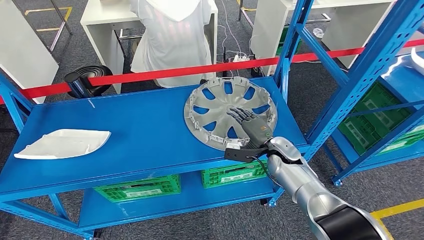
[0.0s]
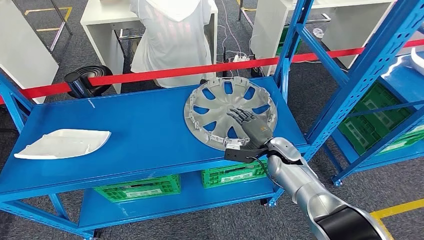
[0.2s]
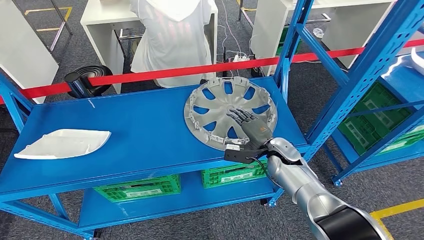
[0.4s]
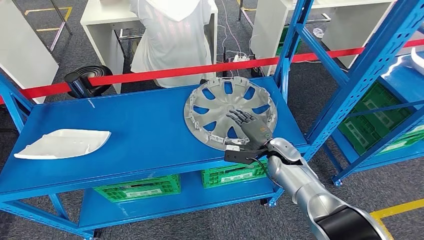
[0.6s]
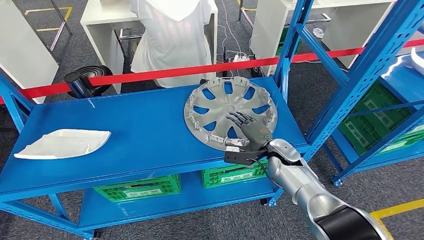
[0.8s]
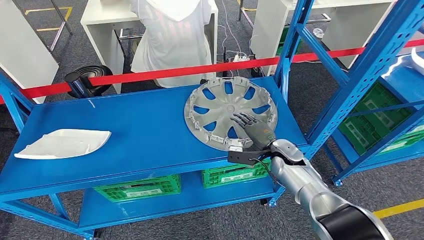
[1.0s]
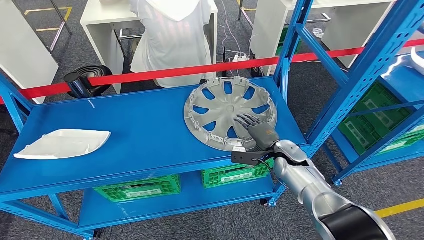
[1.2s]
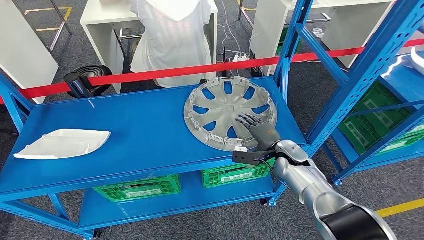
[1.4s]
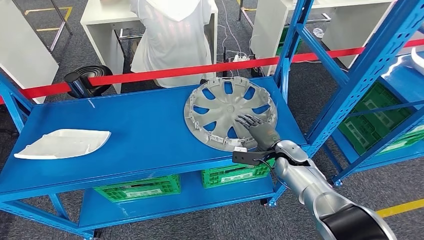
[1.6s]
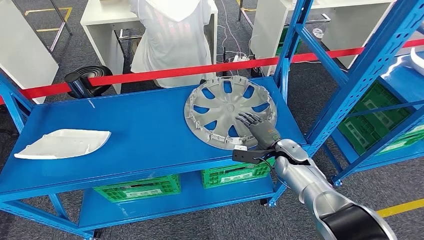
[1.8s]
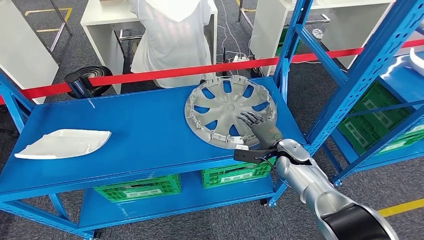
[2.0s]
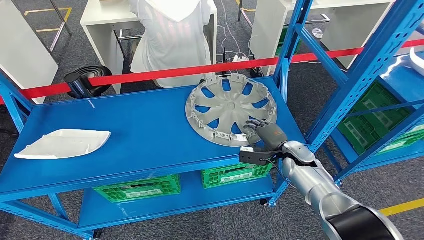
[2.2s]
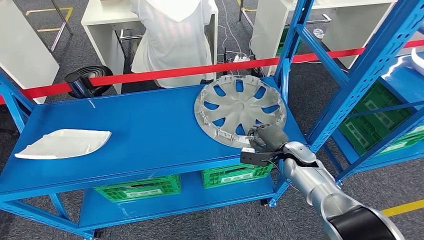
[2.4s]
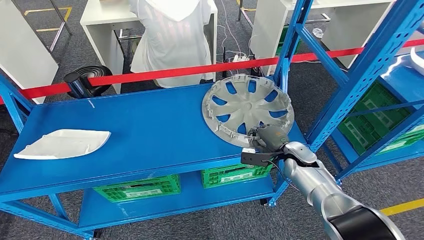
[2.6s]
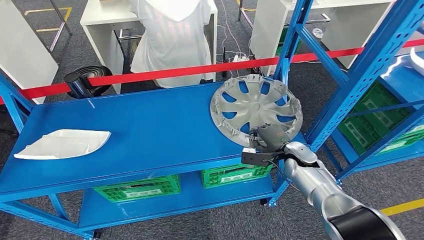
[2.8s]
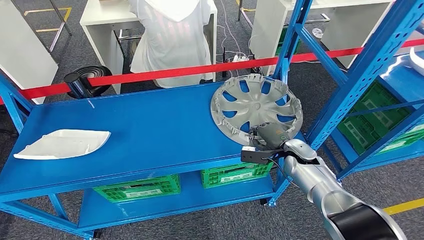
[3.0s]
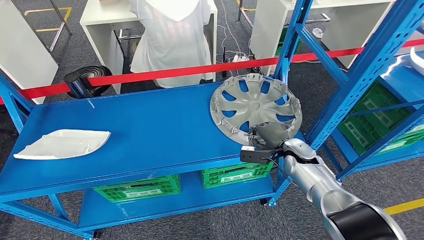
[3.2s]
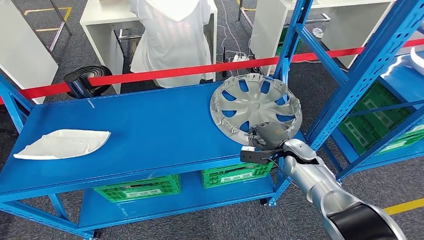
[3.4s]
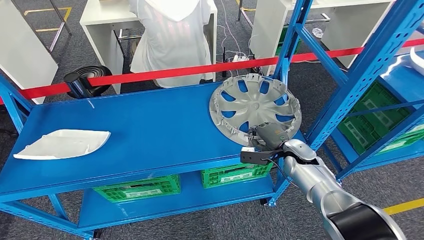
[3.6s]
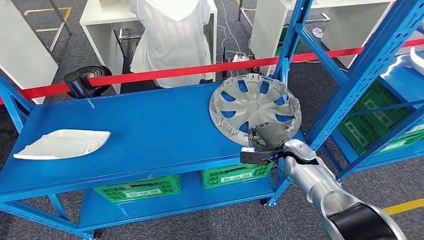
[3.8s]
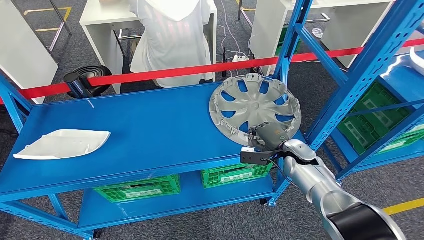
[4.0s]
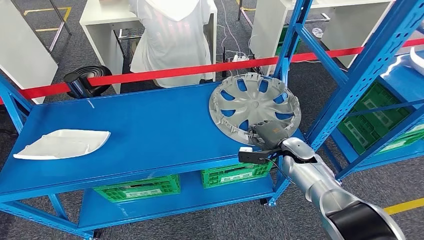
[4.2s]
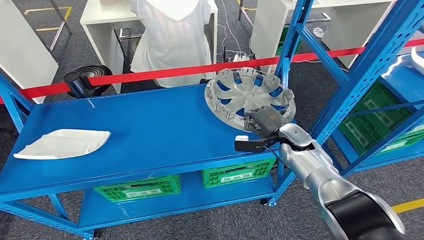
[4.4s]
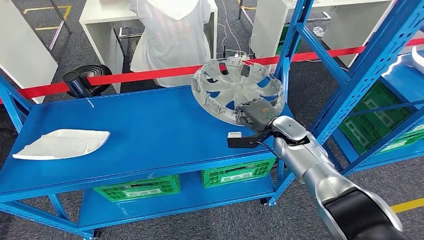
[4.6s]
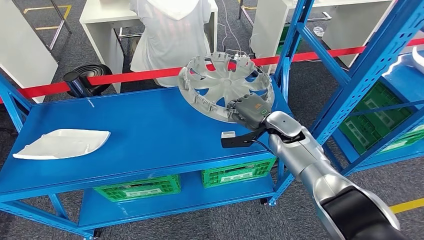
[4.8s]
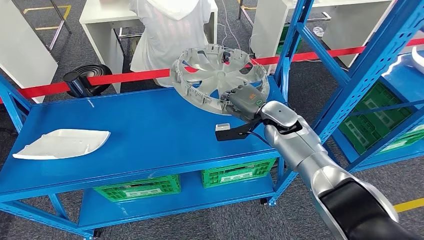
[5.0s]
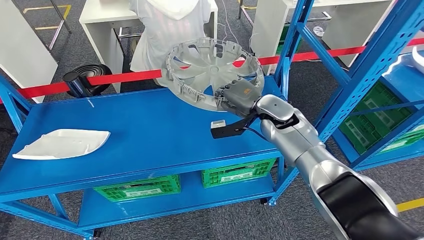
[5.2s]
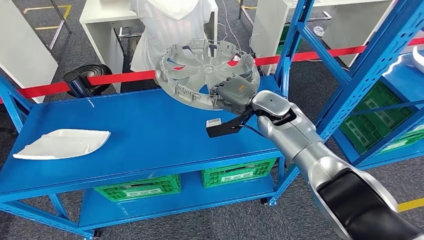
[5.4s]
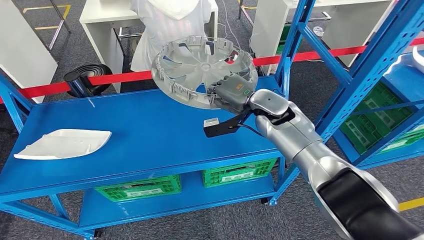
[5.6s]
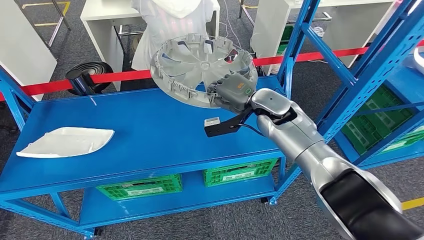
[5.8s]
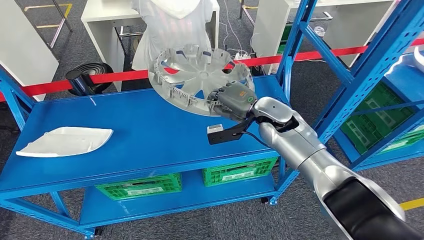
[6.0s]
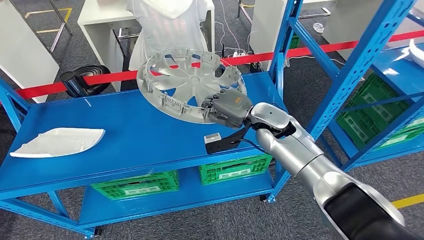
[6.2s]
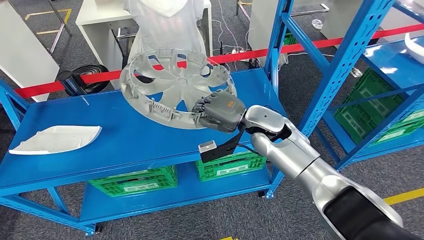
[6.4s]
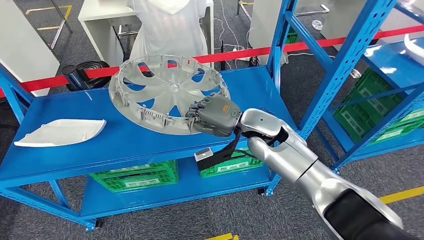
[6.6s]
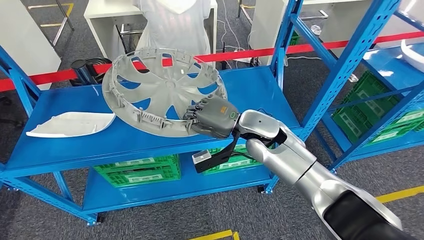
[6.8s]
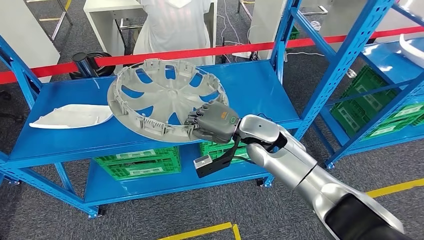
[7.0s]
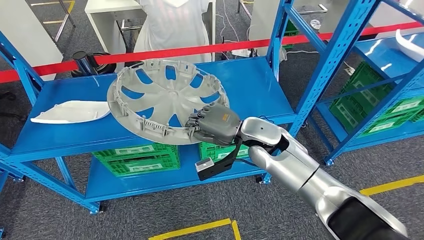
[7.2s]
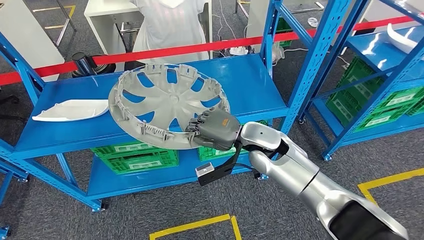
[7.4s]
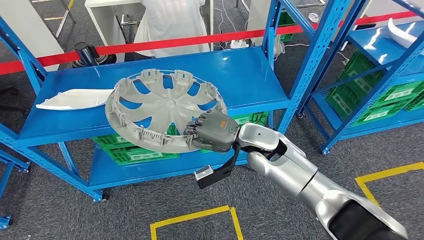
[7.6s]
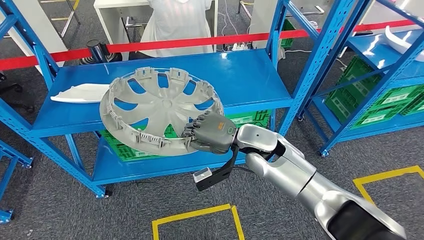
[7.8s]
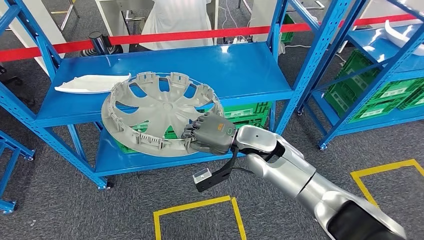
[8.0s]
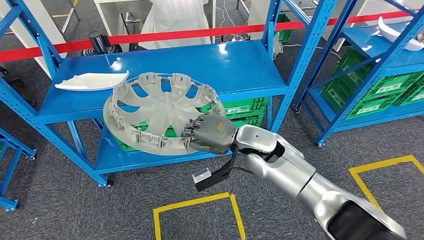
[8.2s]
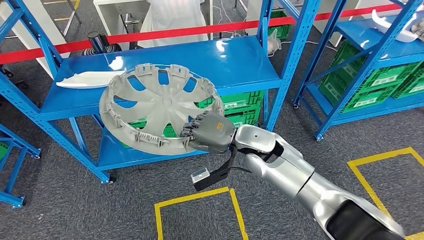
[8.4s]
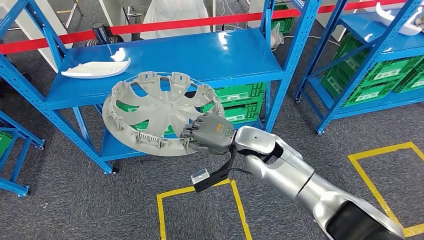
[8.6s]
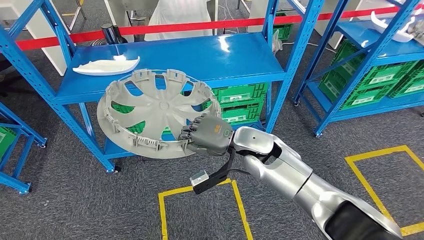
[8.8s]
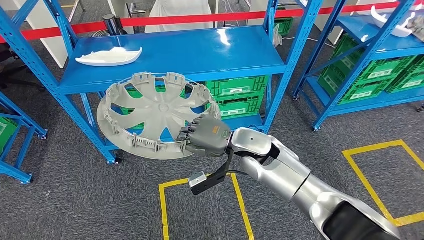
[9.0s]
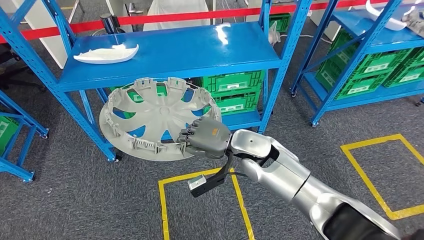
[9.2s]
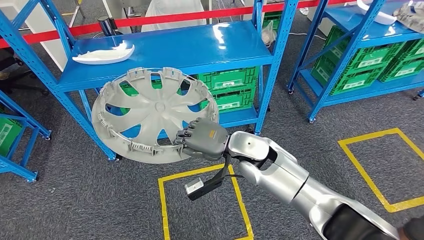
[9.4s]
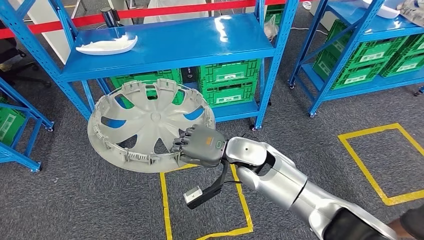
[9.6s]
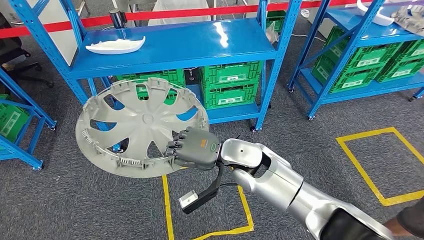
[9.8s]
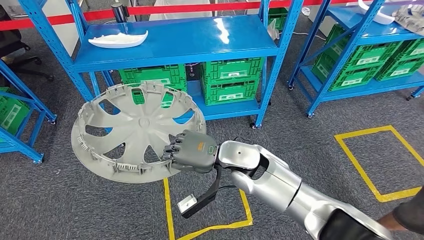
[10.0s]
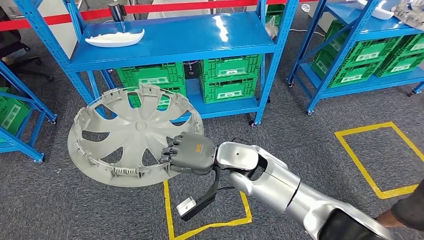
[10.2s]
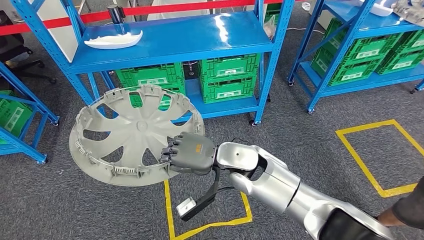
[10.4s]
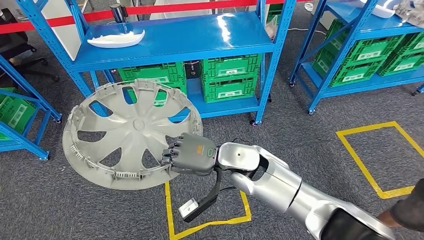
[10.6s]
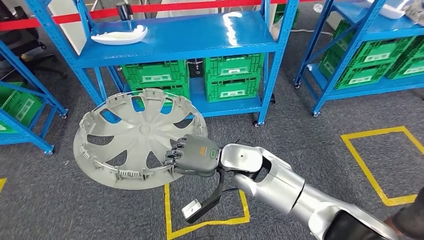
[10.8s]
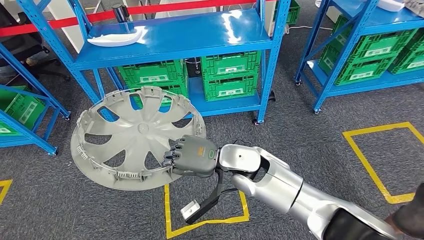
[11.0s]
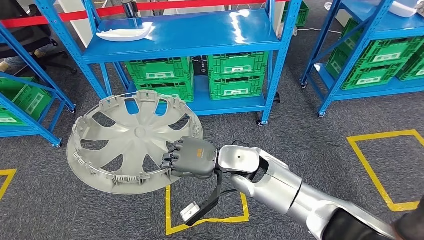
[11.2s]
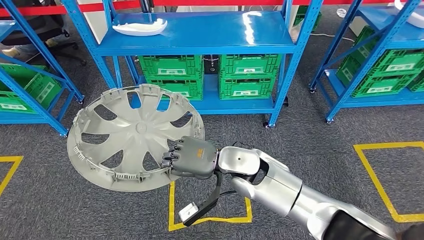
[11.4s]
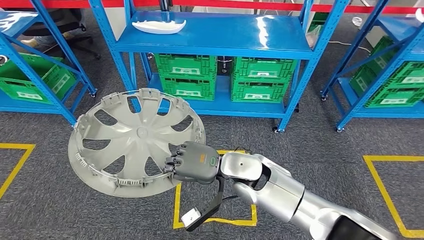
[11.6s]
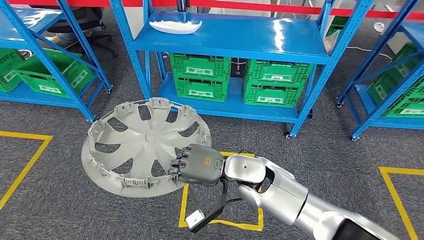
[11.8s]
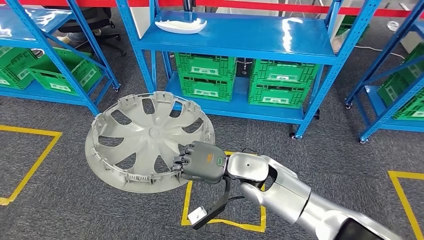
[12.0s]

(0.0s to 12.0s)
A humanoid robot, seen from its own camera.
Step, 0.0s - 6.2s: Pick up the large material from the shelf.
0.0s - 3.0s: The hands stay close to where they were, moving slightly.
3.0s - 4.4s: The right hand changes place by about 5 cm.

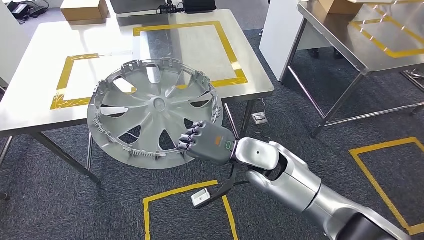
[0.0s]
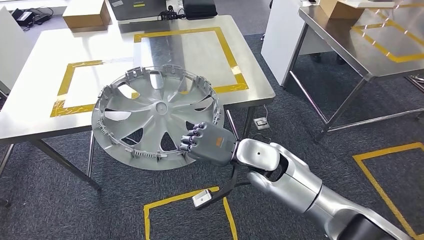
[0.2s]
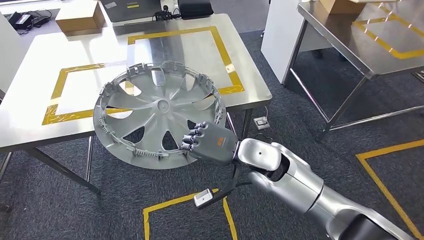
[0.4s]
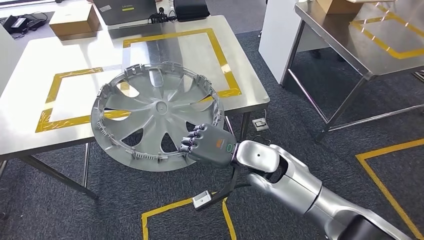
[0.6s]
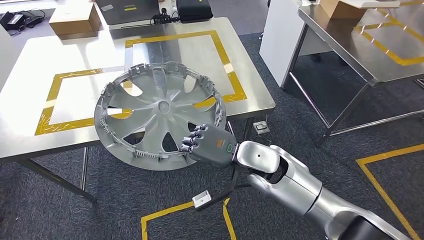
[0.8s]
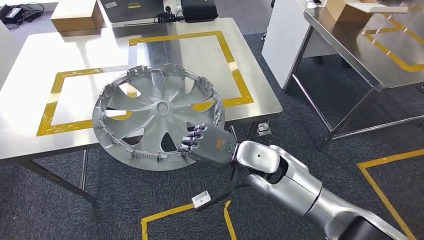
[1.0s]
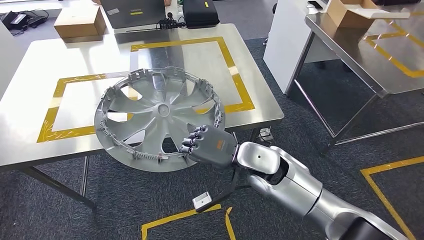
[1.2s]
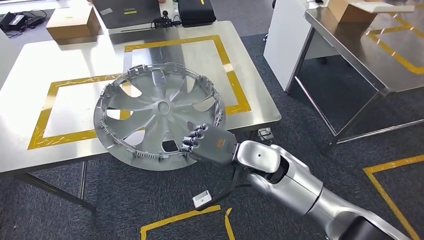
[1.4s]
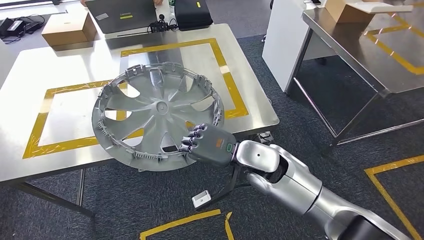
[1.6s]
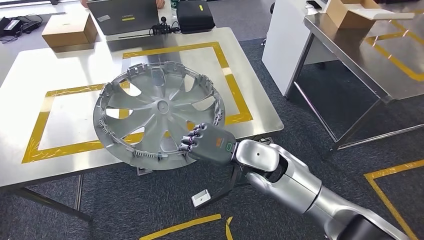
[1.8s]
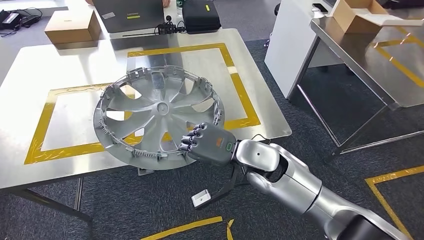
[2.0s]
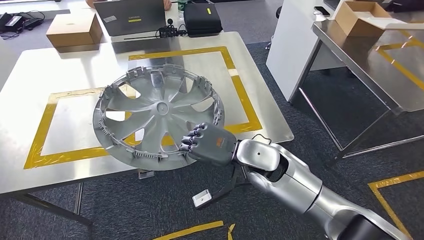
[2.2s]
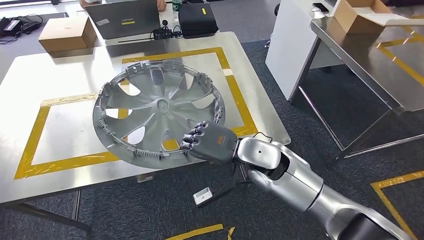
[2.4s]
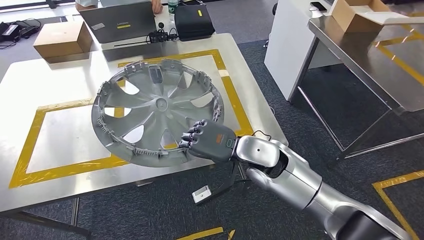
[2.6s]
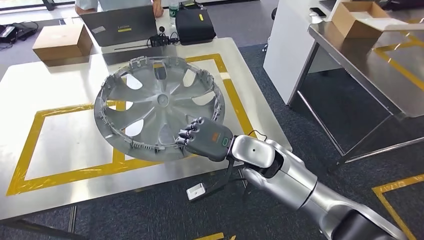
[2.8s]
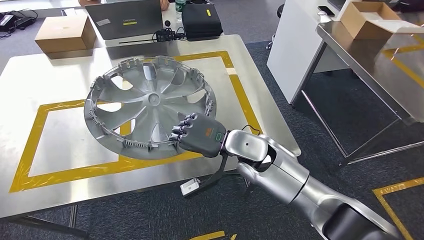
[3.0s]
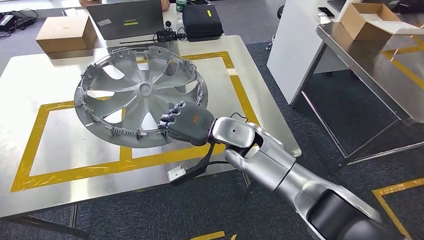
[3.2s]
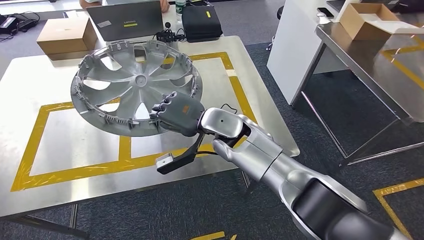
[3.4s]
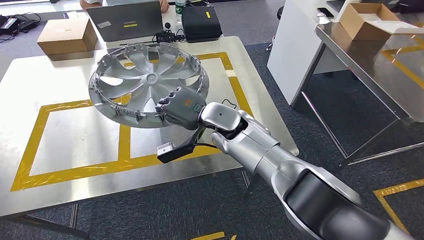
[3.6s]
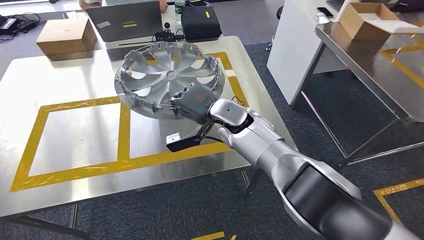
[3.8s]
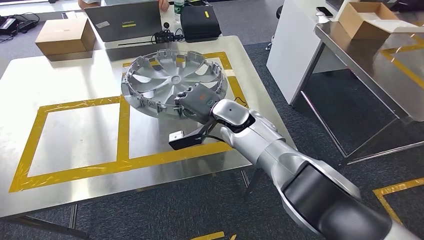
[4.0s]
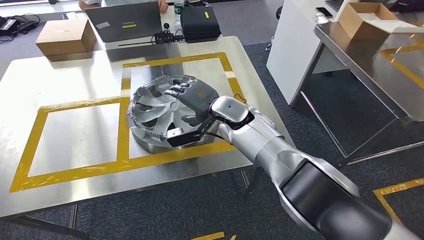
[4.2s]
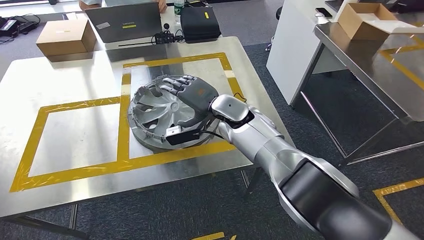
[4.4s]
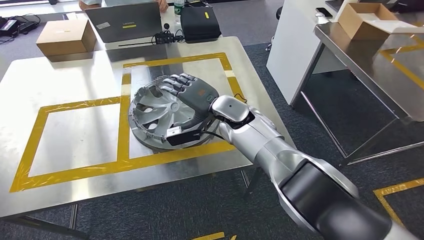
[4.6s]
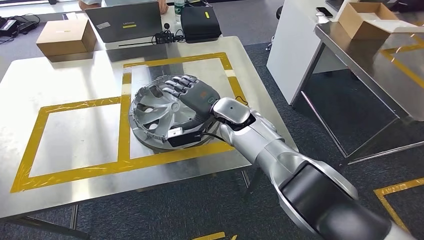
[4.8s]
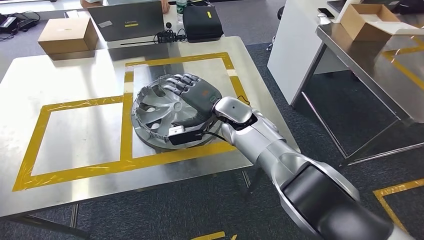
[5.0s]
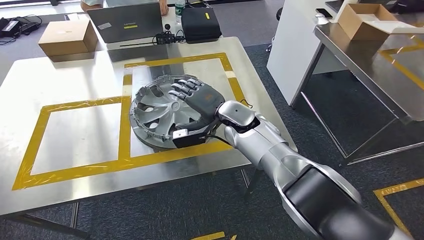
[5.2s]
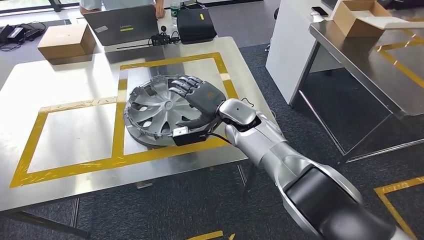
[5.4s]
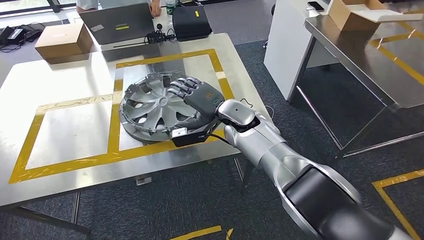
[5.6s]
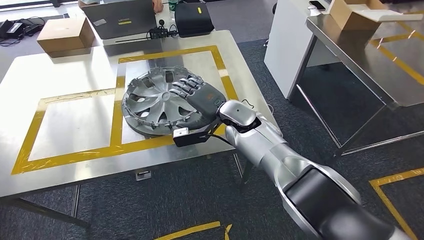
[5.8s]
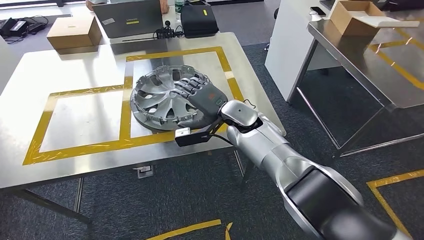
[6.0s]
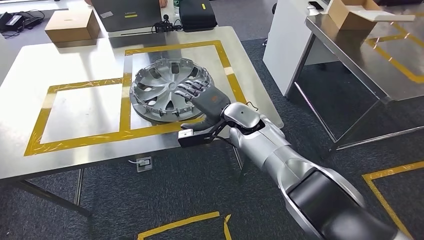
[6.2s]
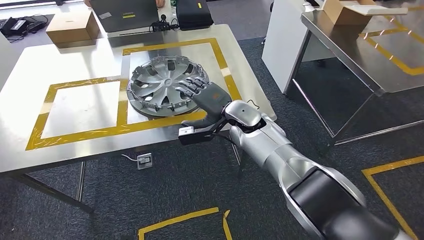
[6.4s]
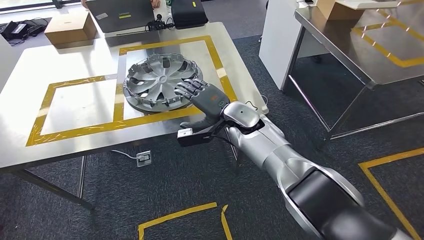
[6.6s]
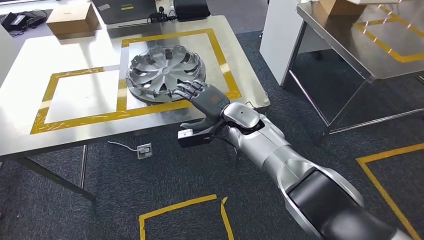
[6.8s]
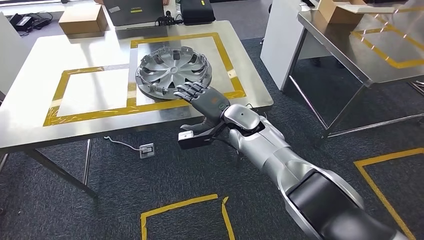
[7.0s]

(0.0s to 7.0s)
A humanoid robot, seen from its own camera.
Step, 0.0s - 3.2s: Move the large material to the workbench.
Step, 3.4s - 6.6s: Insert the large material into the corresponding slot on the workbench.
